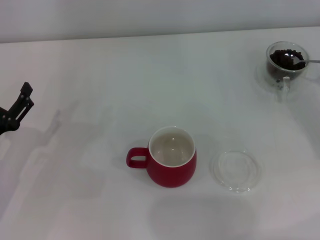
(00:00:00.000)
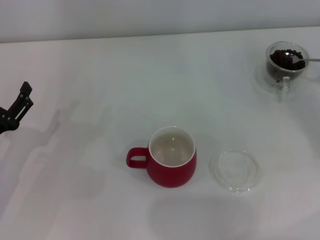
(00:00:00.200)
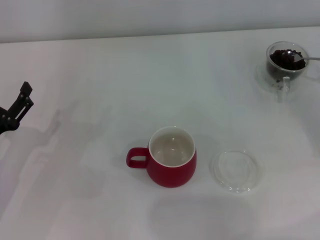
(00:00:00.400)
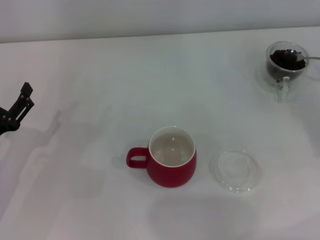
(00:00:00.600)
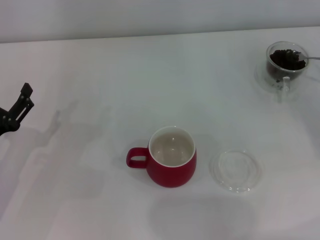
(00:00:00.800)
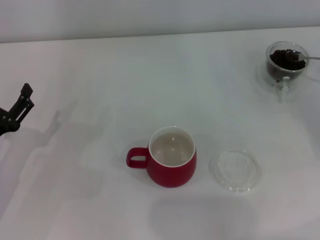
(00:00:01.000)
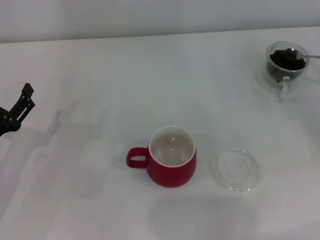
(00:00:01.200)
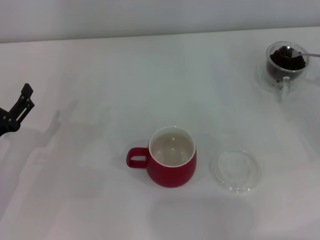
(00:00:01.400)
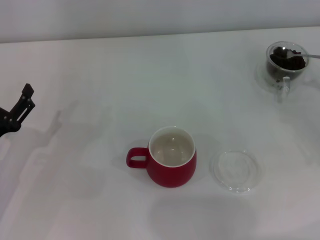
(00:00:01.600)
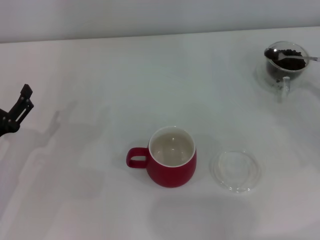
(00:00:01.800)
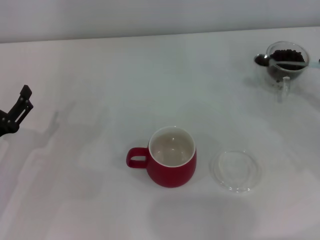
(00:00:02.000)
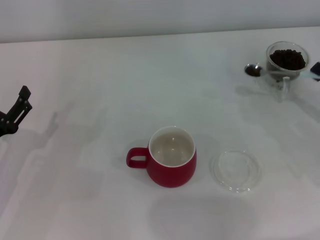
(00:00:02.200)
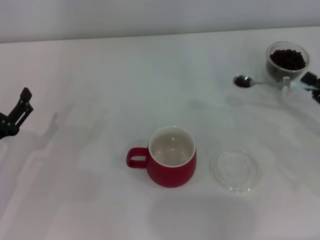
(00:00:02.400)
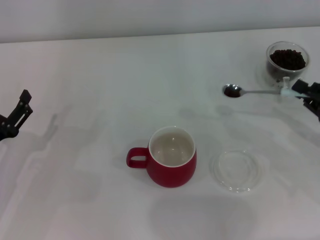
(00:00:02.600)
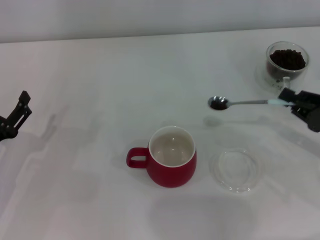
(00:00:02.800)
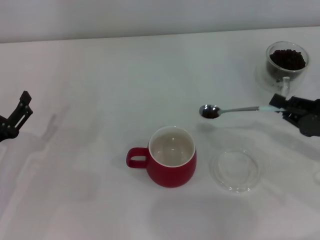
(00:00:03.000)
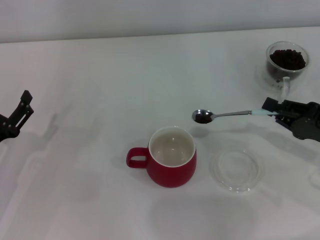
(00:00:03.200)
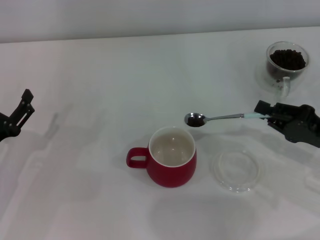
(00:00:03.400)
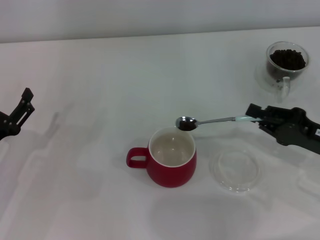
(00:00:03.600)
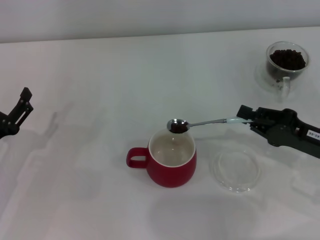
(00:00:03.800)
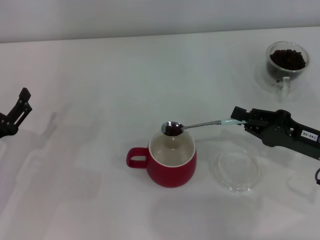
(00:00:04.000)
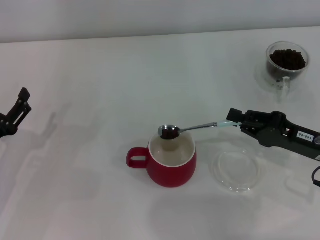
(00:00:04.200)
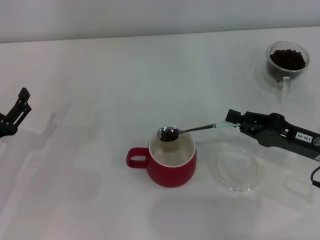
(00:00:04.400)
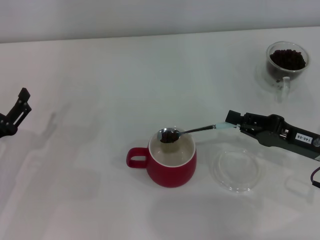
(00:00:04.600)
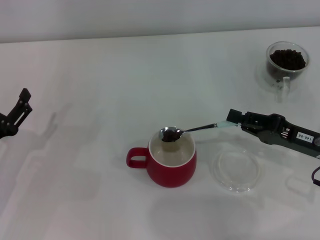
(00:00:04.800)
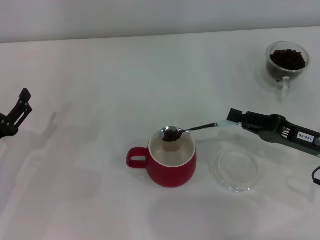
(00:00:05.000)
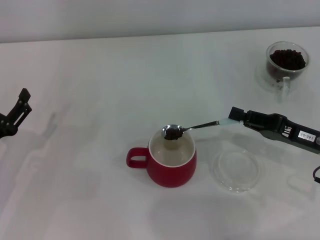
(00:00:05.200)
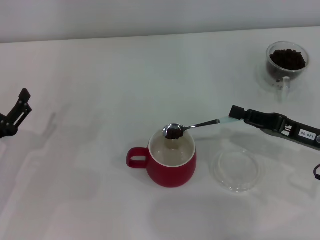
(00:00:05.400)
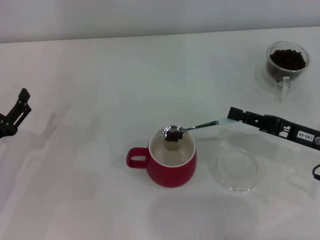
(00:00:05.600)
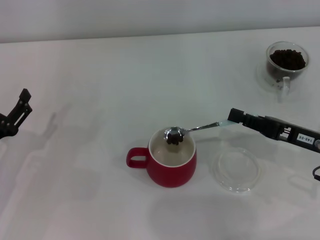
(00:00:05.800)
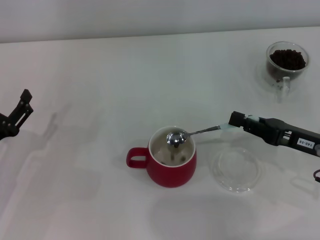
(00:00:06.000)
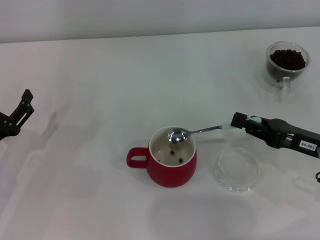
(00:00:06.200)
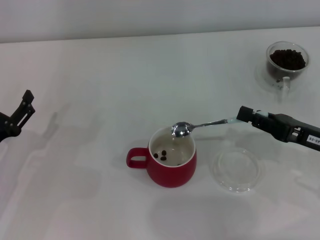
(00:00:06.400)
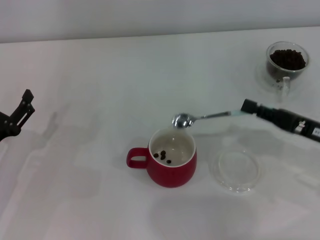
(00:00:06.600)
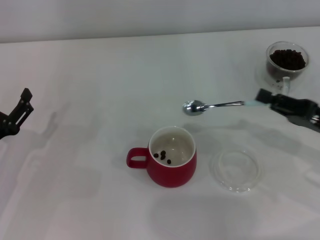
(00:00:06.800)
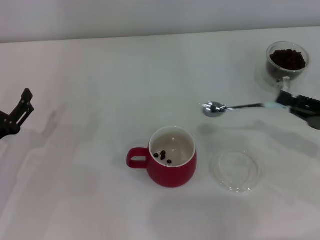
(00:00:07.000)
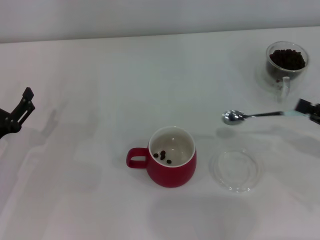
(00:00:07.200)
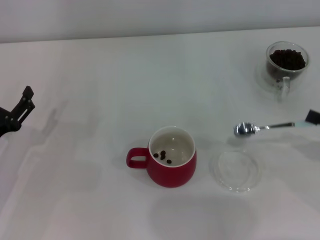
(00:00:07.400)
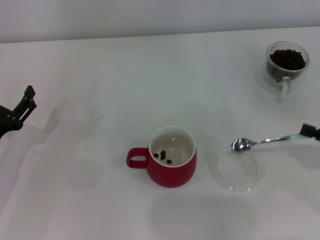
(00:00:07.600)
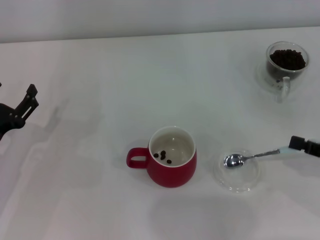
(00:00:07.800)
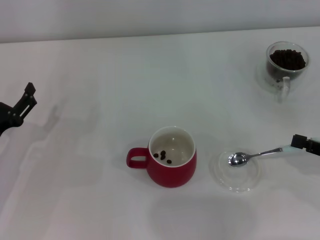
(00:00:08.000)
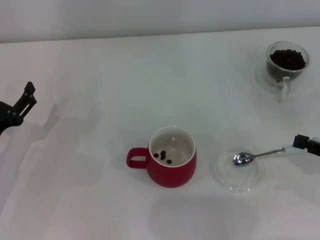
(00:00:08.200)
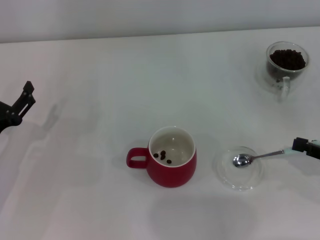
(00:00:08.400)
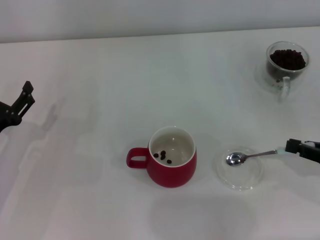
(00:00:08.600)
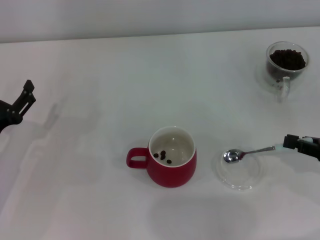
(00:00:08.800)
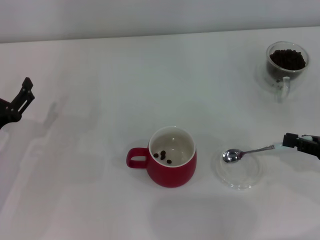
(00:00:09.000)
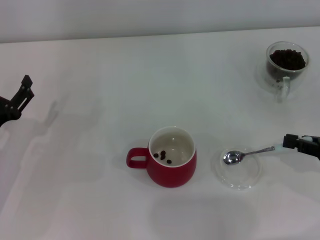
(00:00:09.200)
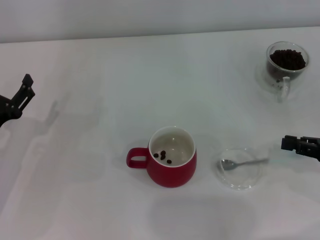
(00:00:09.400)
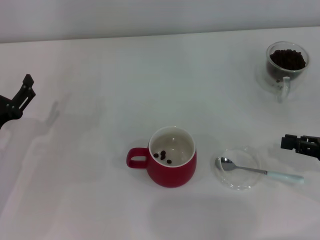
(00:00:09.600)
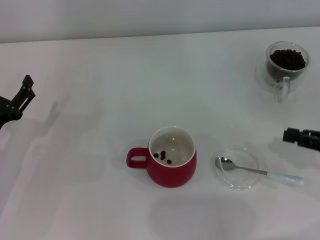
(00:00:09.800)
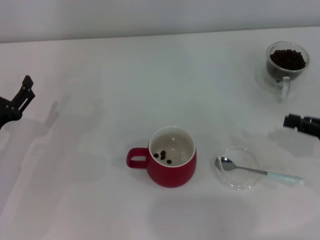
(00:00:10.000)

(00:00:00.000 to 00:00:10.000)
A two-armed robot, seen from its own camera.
Task of the whole recording: Use a blue spoon to take out the coffee beans from the glass and pour them into the red cup.
Step, 00:00:00.000 - 00:00:06.600: Scoop a spoonful of beans into the cup with the right gripper.
Step, 00:00:06.800 - 00:00:09.600: Place the spoon back in its original place with the right gripper.
00:00:01.400 - 00:00:02.800: The right gripper is displaced to the left by about 5 cm.
00:00:02.800 - 00:00:04.200: The right gripper heads to the left, covering approximately 5 cm.
00:00:05.800 - 00:00:07.200: The right gripper moves to the right, some 10 cm.
00:00:08.600 - 00:00:10.000: The grippers move only a little.

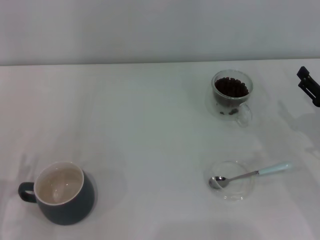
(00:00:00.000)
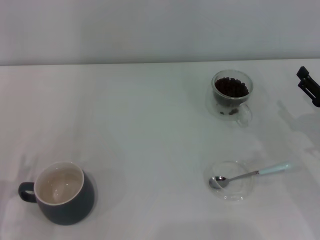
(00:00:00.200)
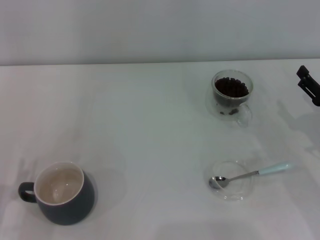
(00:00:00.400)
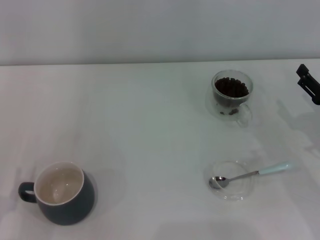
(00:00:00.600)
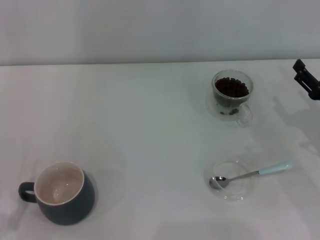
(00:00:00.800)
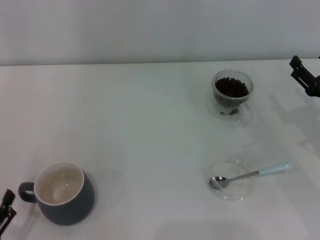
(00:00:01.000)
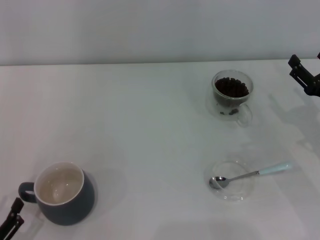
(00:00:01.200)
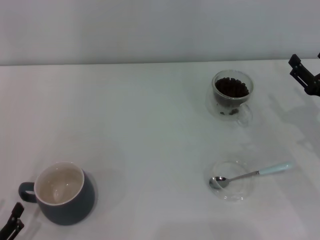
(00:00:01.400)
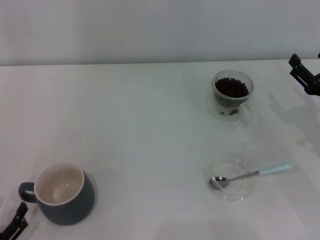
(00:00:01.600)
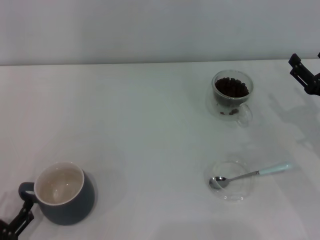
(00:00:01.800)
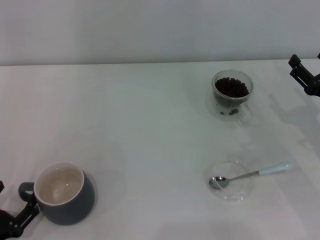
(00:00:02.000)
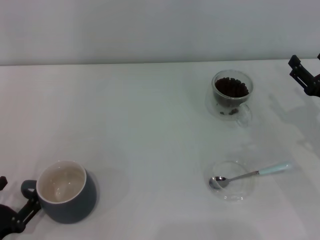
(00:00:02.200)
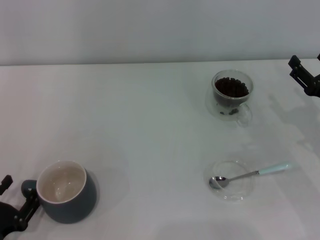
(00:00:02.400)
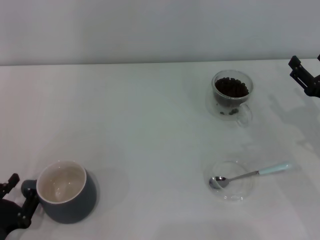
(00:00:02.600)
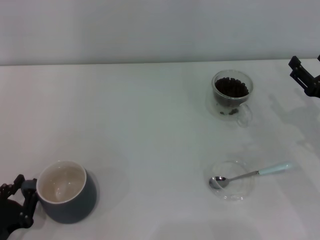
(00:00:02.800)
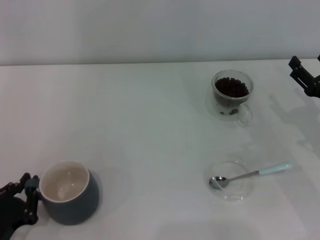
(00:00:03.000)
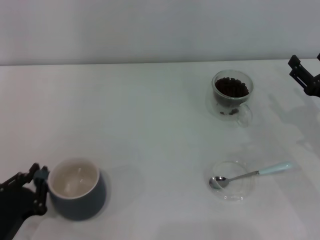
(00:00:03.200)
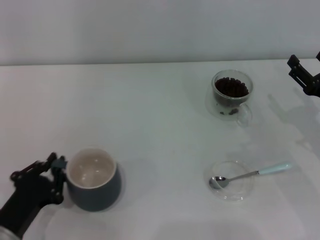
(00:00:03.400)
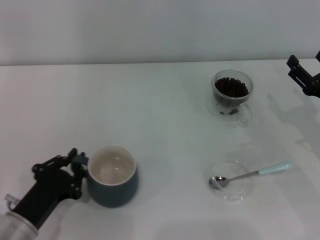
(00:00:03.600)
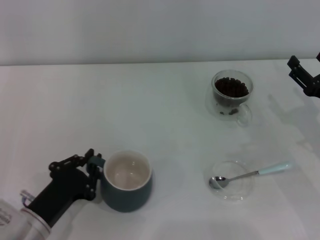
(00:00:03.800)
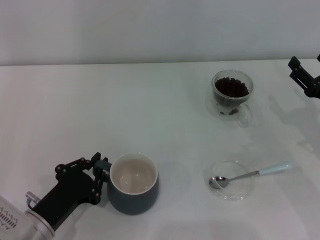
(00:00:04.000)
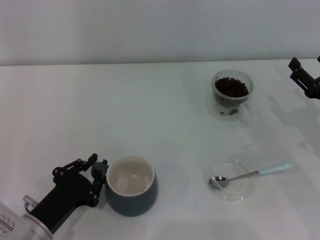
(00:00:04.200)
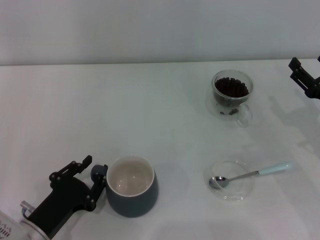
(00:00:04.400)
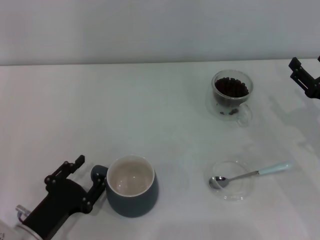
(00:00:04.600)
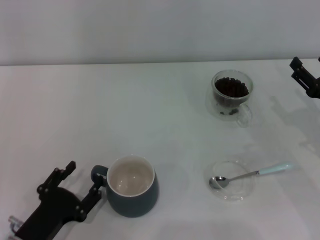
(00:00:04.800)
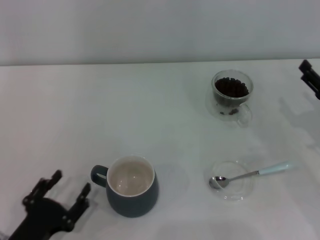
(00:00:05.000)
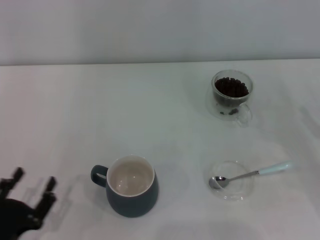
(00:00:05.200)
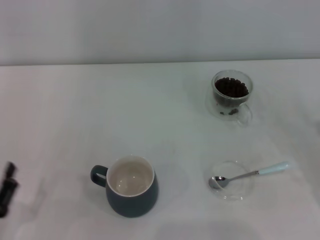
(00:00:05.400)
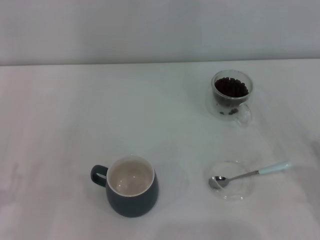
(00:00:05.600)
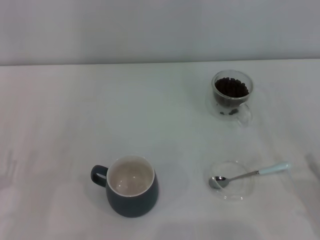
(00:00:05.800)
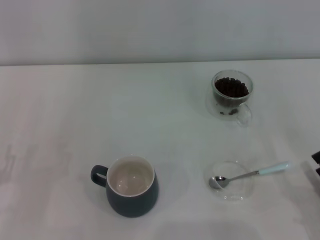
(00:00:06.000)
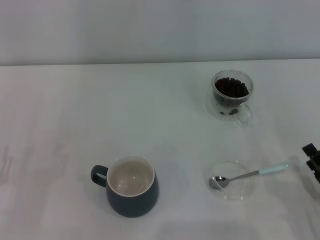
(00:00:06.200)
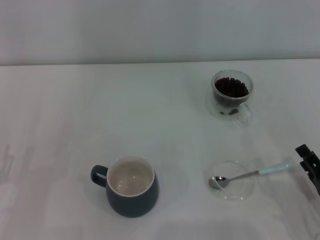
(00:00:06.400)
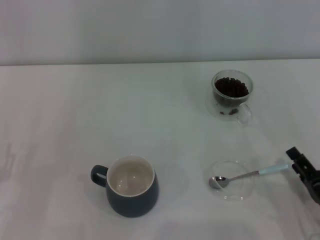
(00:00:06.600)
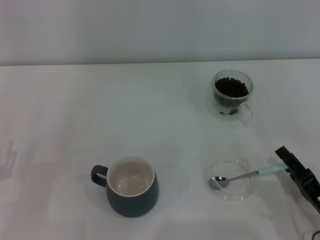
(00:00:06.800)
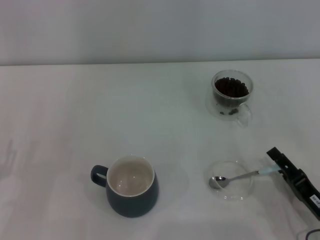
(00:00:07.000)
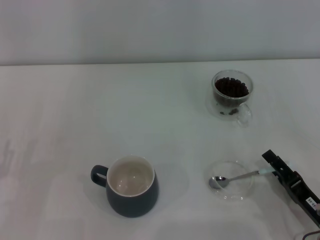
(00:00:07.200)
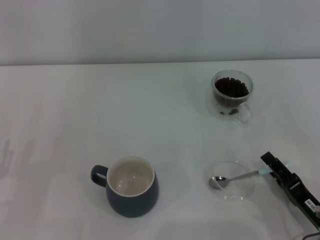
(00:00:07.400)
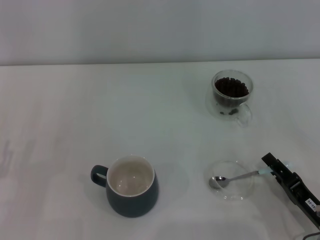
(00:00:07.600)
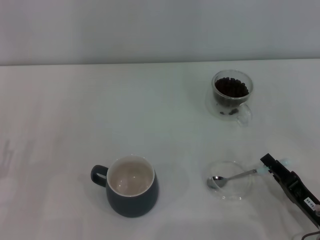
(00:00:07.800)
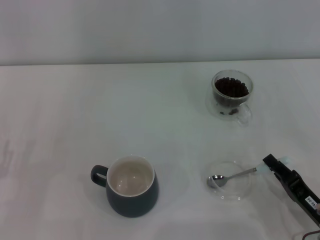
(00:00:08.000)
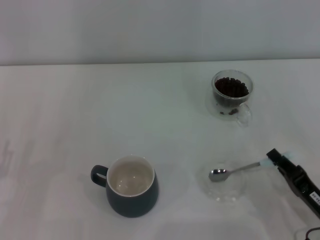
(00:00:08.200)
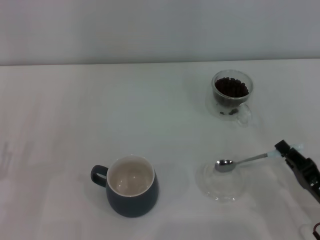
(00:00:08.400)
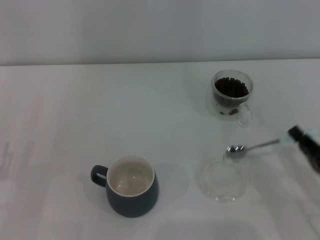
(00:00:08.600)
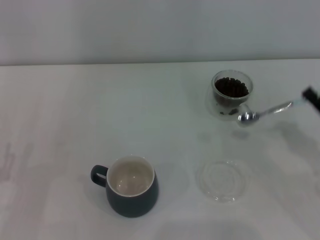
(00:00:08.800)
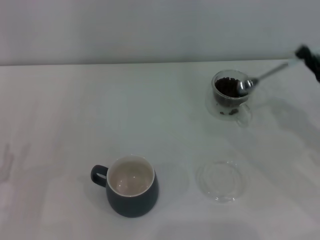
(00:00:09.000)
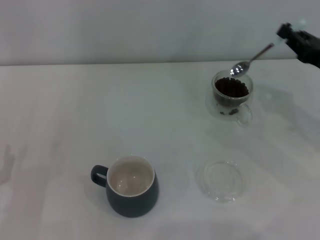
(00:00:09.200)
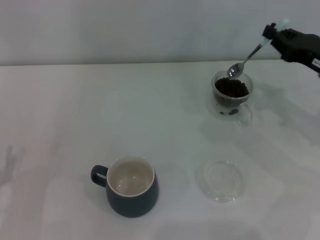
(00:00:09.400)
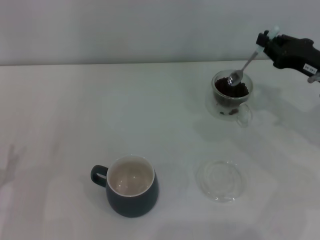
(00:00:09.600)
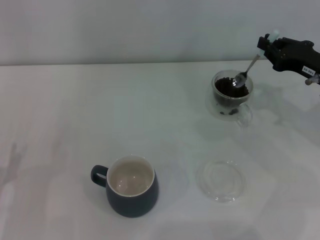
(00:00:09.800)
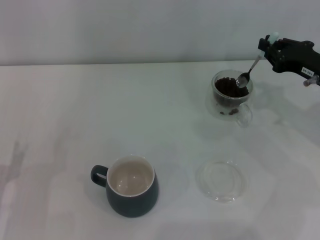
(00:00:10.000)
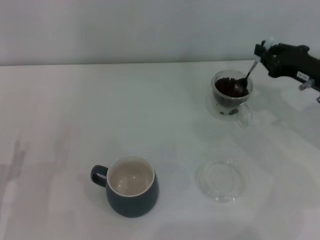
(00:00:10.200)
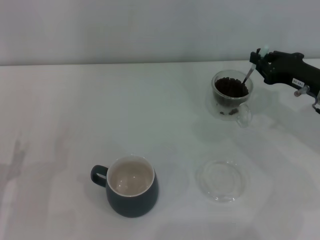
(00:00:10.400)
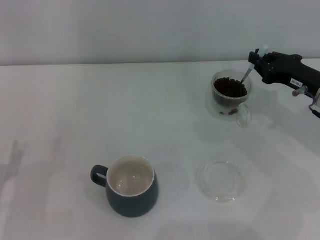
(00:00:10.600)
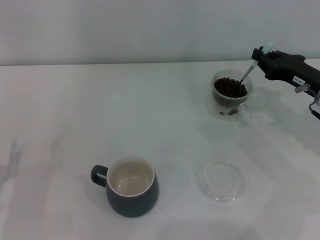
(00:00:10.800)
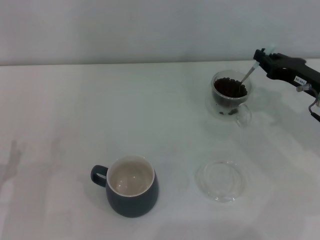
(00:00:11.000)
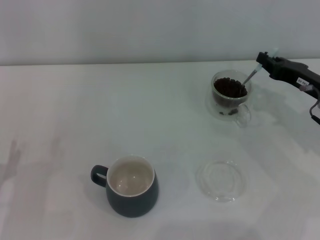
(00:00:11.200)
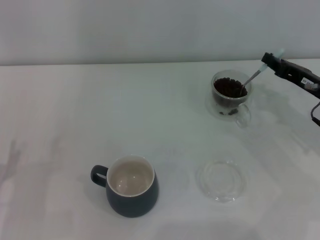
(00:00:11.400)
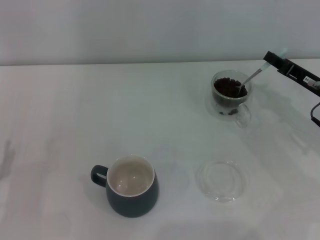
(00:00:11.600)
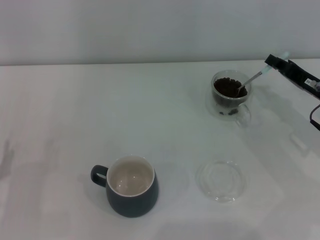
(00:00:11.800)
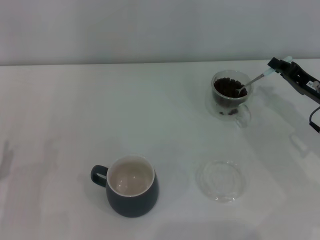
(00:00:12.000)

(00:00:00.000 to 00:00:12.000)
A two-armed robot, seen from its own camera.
Task of the whole recording: Use a blue spoon to take out the coffee beans from the glass and pour them into the gray cup.
Step, 00:00:00.000 - 00:00:04.800: Move the cup to the center of view with the left gripper.
Step, 00:00:05.000 - 00:00:08.400: Pick up the spoon with the right gripper.
00:00:00.000 - 00:00:01.600: The left gripper heads backward, covering about 5 cm.
00:00:01.600 - 00:00:03.000: The left gripper shifts by about 5 cm, and closes up.
00:00:03.000 - 00:00:04.400: The left gripper shifts some 5 cm to the right.
00:00:04.400 - 00:00:06.000: The left gripper shifts approximately 10 cm to the left, and opens its fingers. The right gripper shifts some 15 cm backward and downward.
00:00:06.000 - 00:00:07.600: The right gripper goes roughly 5 cm to the left.
00:00:07.600 - 00:00:09.000: The right gripper travels forward, upward and to the right by roughly 20 cm, and closes up.
00:00:09.000 - 00:00:10.400: The right gripper travels forward by some 5 cm.
